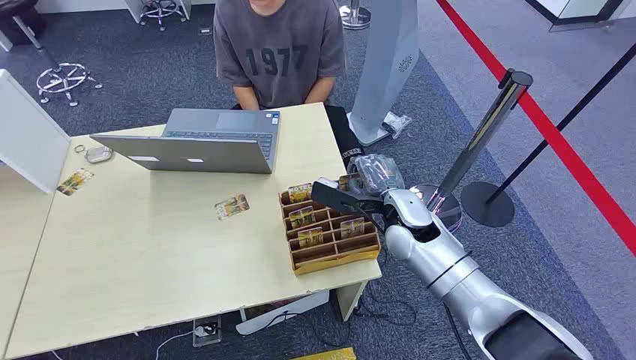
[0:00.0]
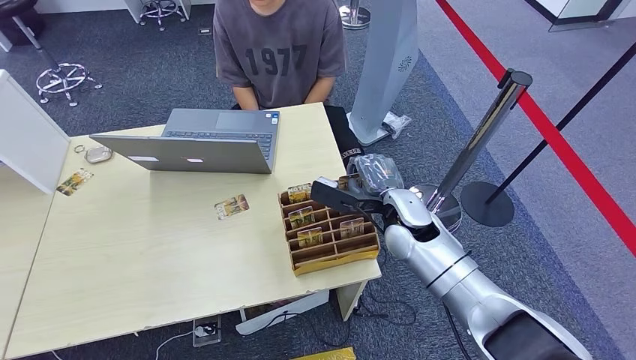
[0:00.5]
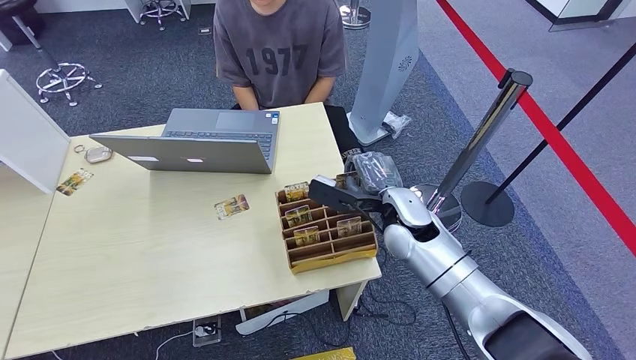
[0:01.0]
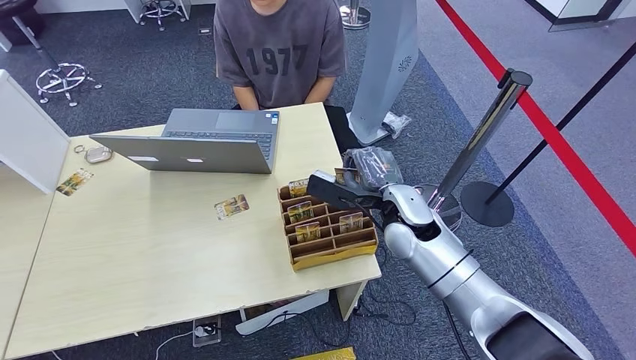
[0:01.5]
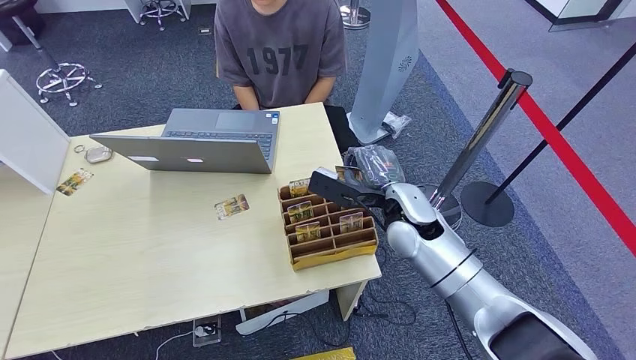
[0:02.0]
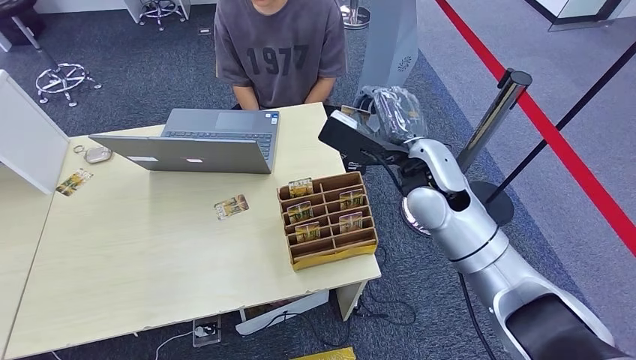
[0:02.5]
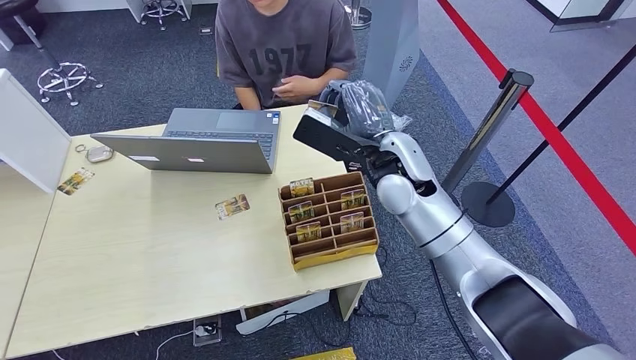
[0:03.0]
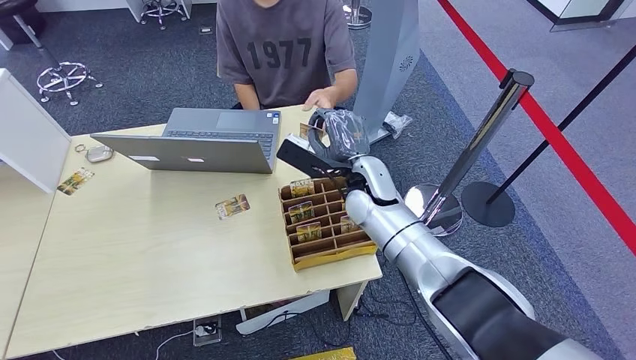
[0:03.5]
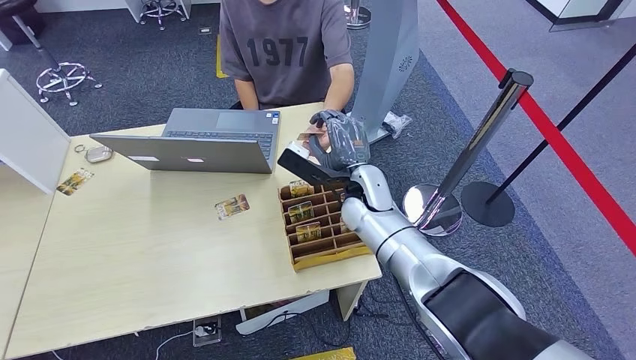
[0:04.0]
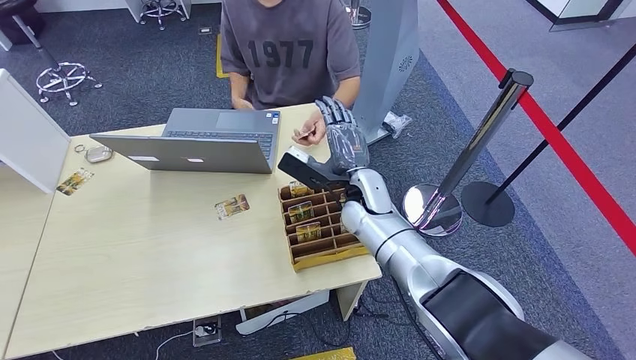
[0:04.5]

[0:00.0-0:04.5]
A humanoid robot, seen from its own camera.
Task of the whole recording: Pick up the card and hand it to the target person.
Step, 0:00.0 to 0:01.0: Pick up the key card from the card box.
Step, 0:02.5 to 0:04.5: Hand the key card to the target.
0:02.0 to 0:04.5: The right hand travels forward by some 5 cm, and moves some 10 cm upward and comes back.
